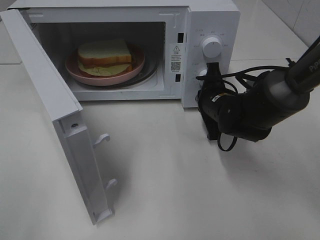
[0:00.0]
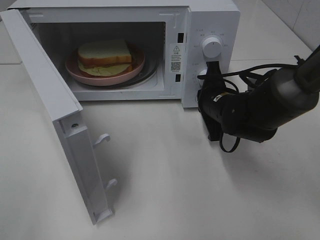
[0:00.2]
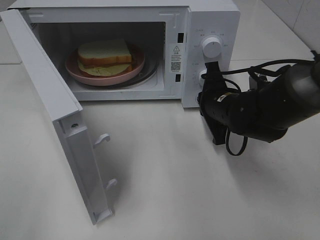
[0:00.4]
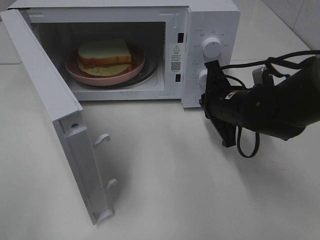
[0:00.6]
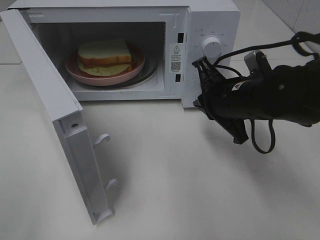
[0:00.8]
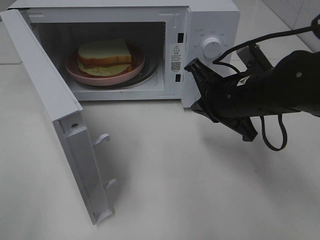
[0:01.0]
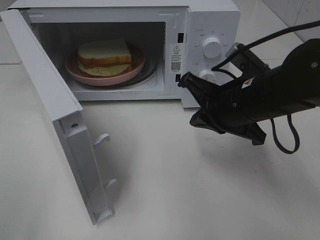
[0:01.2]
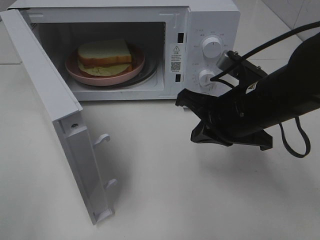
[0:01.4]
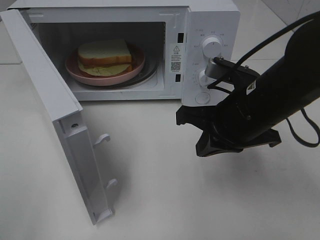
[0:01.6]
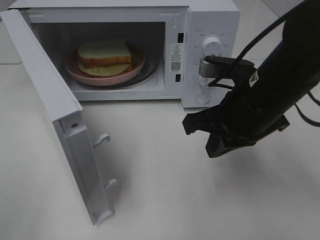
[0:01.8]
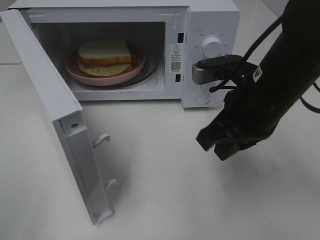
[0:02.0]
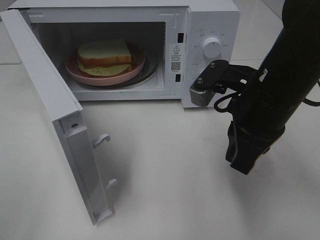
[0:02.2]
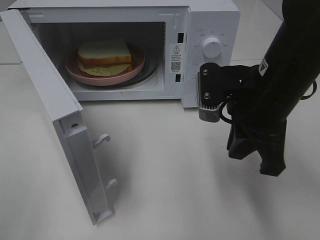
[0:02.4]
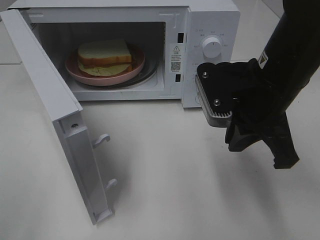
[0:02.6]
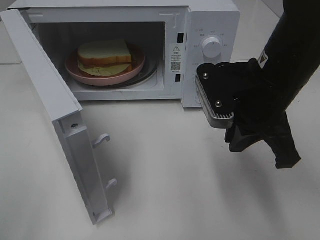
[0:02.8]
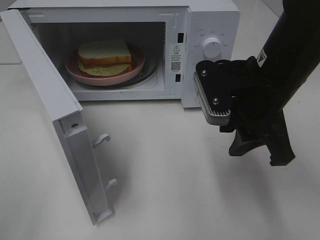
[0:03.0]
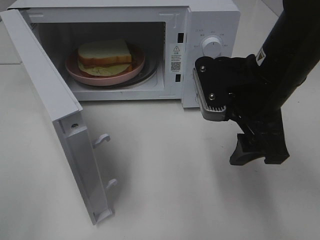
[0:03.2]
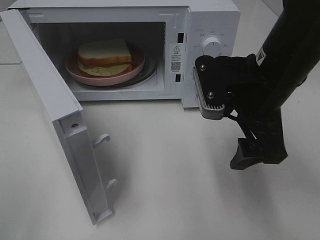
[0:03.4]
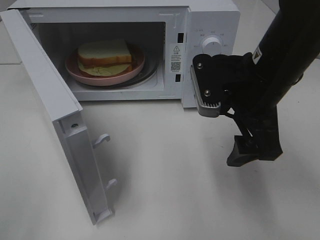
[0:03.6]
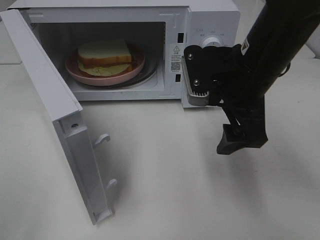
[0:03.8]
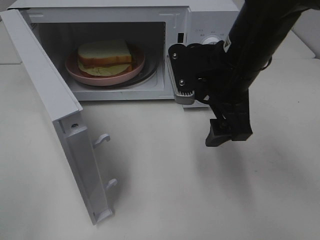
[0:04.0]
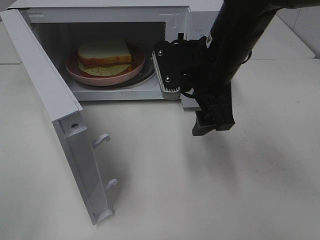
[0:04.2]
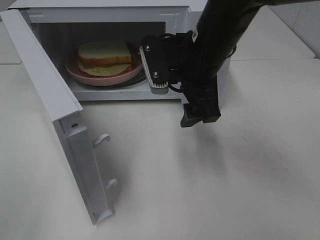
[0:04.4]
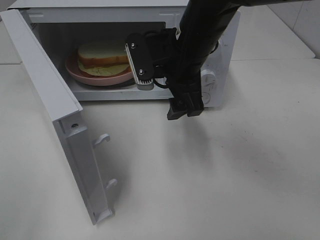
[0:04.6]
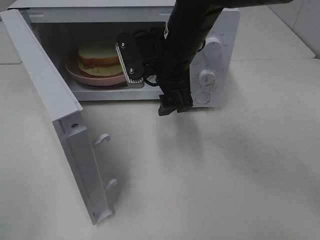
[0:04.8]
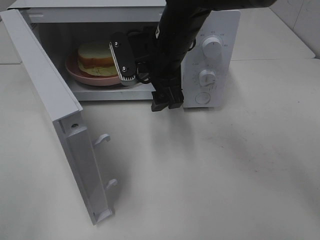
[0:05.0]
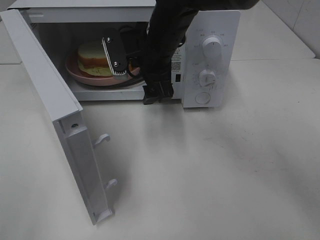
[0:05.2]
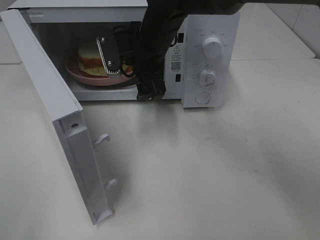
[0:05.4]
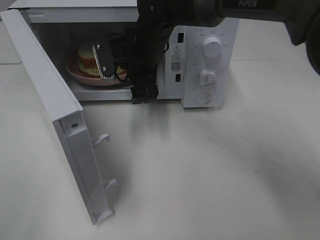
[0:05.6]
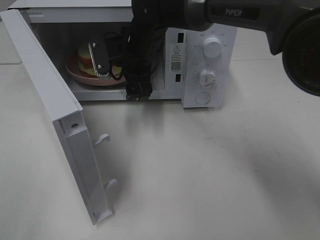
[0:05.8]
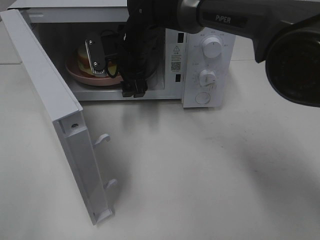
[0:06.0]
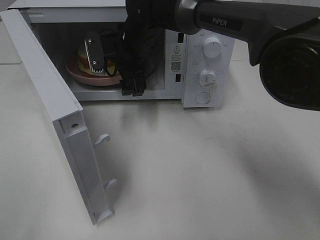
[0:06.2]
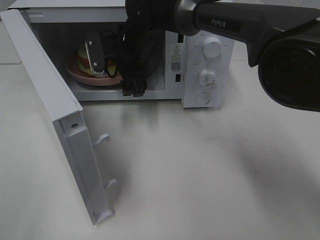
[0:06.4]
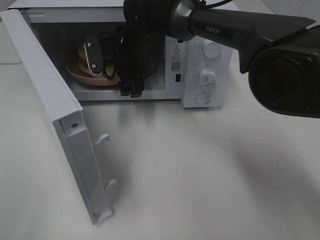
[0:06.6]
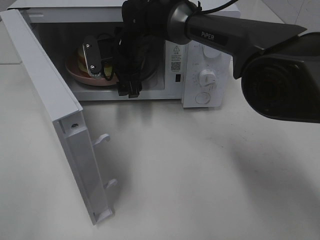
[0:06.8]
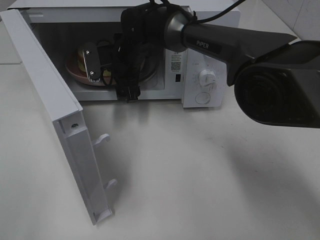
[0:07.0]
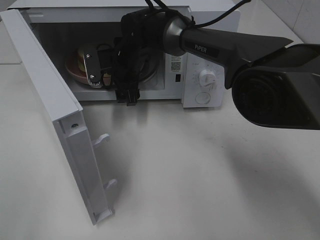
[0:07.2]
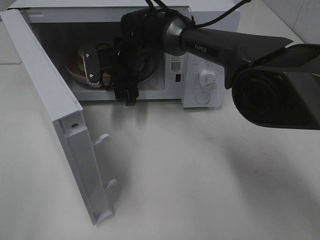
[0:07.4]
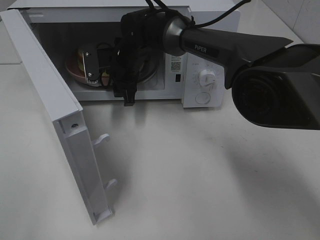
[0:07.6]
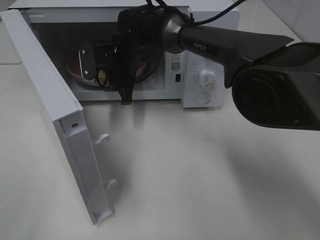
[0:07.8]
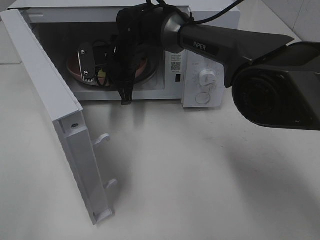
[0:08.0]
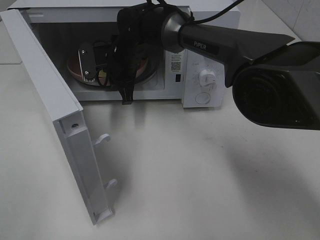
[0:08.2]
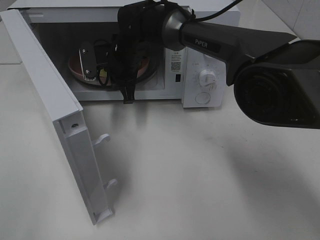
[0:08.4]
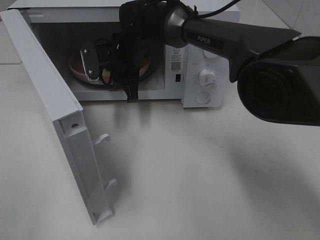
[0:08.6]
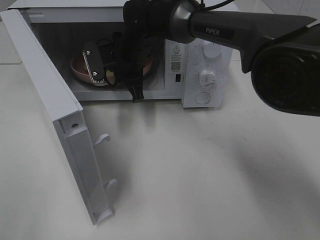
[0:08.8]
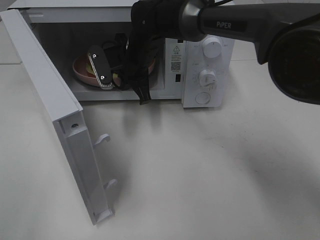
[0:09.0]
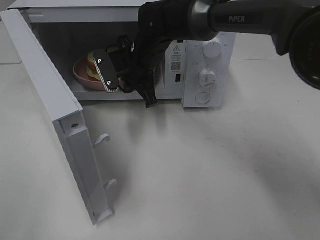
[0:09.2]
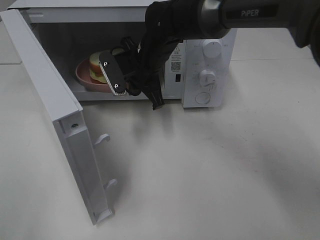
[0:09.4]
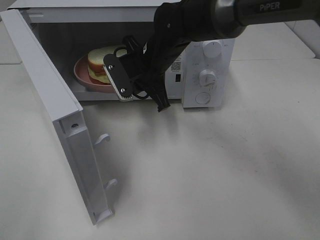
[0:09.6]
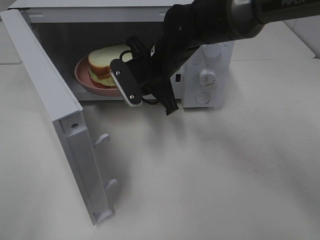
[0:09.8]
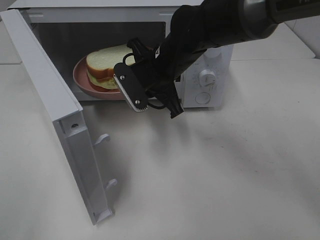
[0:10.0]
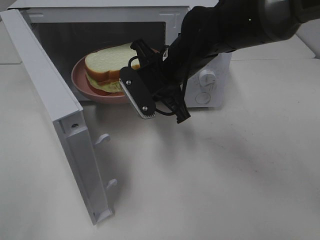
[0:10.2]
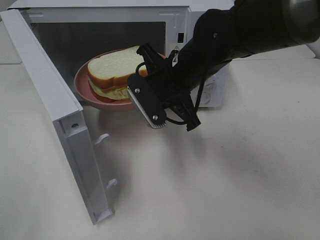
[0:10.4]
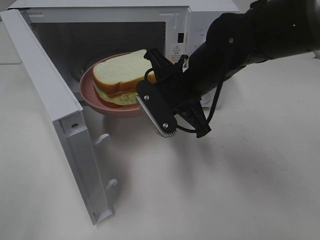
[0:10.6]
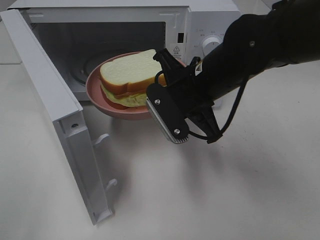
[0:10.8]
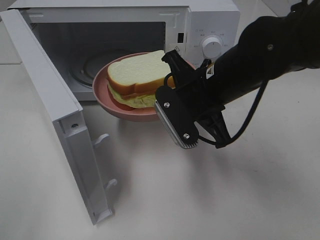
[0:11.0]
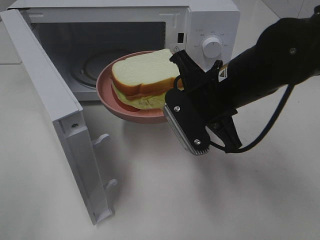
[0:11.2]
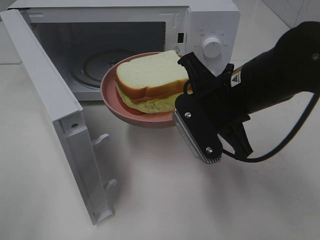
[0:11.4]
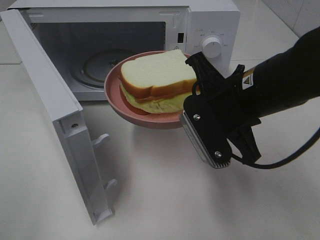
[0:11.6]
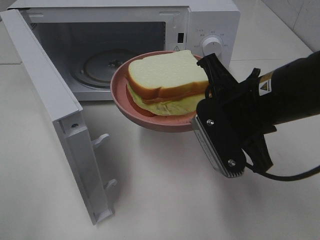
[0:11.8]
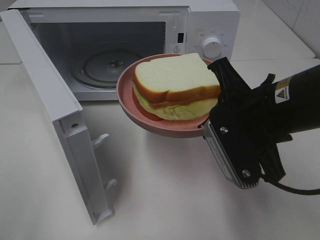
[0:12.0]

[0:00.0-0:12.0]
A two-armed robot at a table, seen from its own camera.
Task of the whole recording: Heat Sandwich.
Step, 0:00.6 to 0:08.2: Right hand: grab the plate with the sandwich.
0:00.0 to 0:01.6: The right gripper travels backward and upward by some 15 cm.
0:01.6 to 0:03.0: The right gripper opens.
0:03.0 to 0:04.4: The right gripper moves to the left and forward, about 10 cm, and opens its fingers.
0:04.4 to 0:06.0: The right gripper moves forward, to the left and downward, about 15 cm.
0:06.0 to 0:07.6: The right gripper closes up.
0:07.6 to 0:09.0: The right gripper closes.
0:09.0 to 0:10.4: The right gripper shifts some 15 cm backward and to the right.
0:10.4 to 0:12.0: The right gripper heads backward and to the right, covering roughly 15 cm.

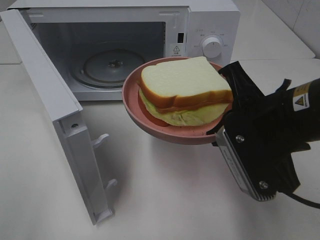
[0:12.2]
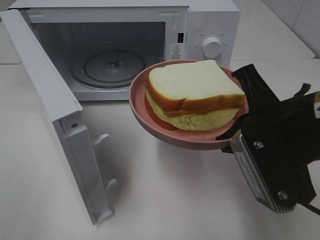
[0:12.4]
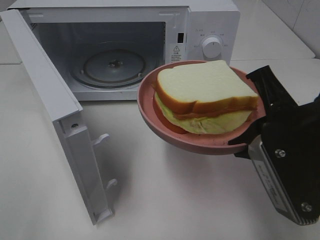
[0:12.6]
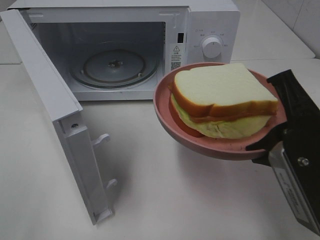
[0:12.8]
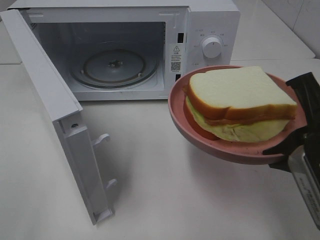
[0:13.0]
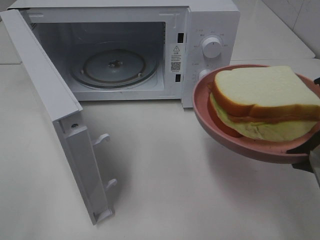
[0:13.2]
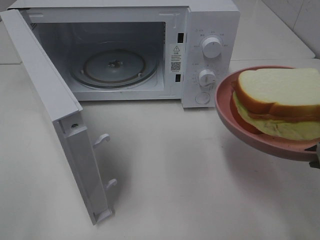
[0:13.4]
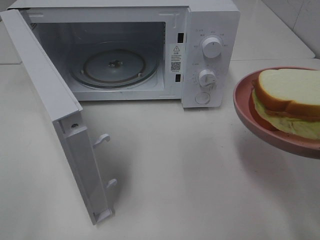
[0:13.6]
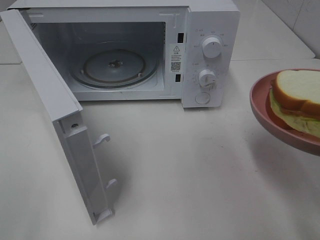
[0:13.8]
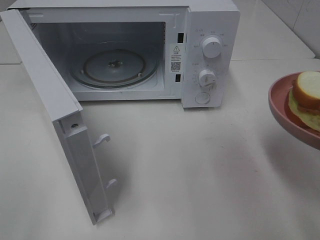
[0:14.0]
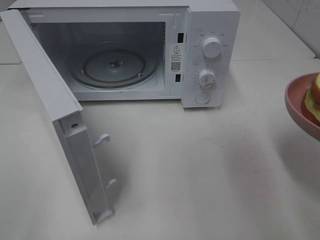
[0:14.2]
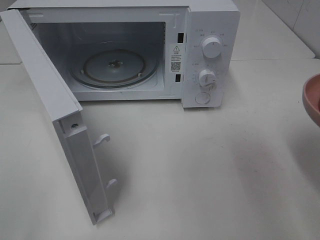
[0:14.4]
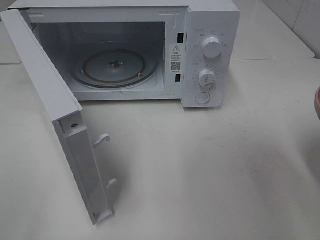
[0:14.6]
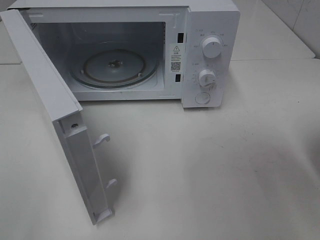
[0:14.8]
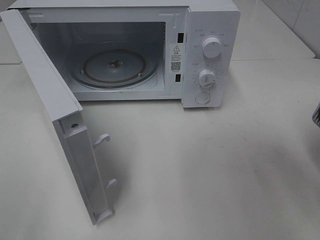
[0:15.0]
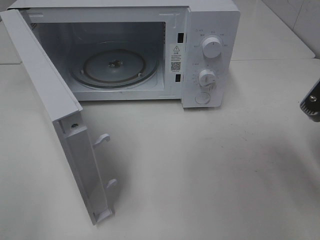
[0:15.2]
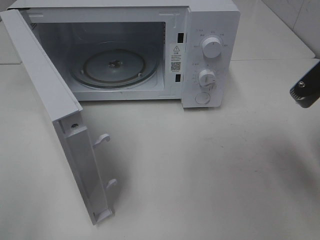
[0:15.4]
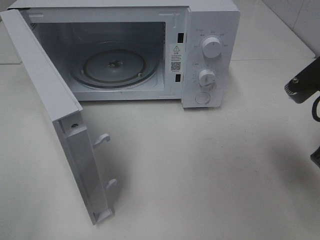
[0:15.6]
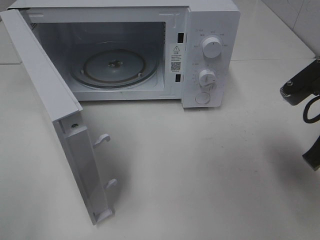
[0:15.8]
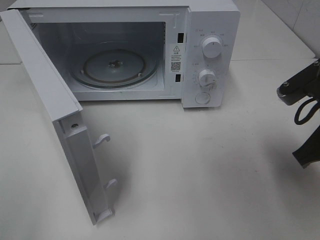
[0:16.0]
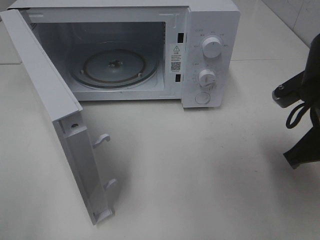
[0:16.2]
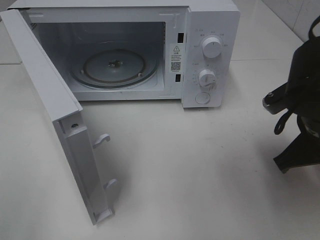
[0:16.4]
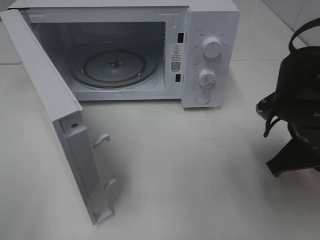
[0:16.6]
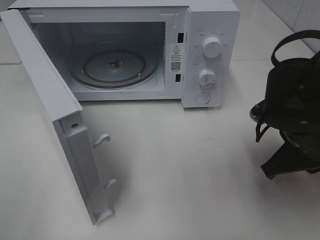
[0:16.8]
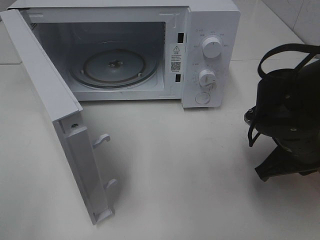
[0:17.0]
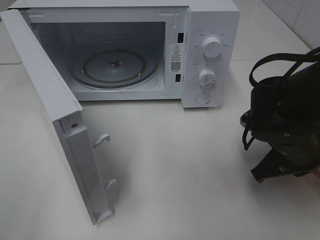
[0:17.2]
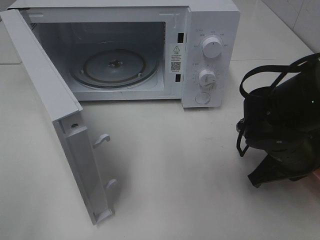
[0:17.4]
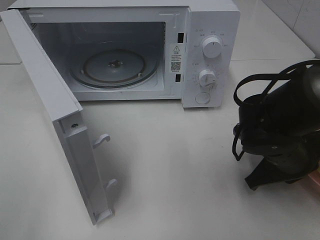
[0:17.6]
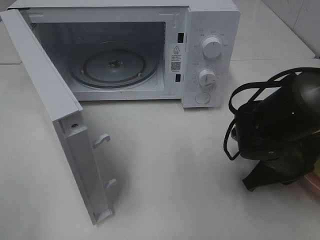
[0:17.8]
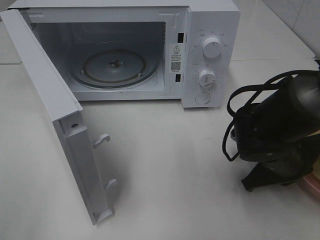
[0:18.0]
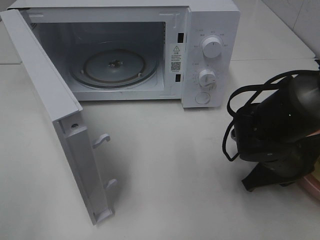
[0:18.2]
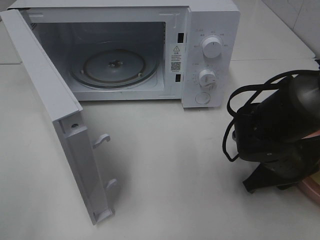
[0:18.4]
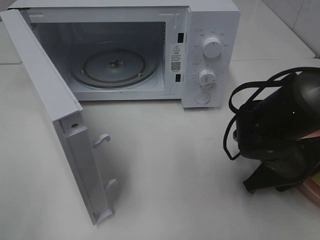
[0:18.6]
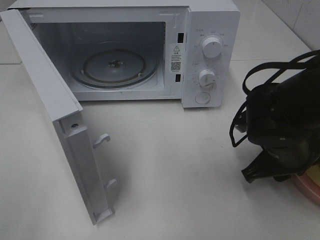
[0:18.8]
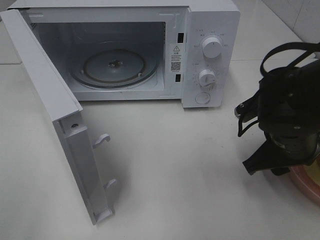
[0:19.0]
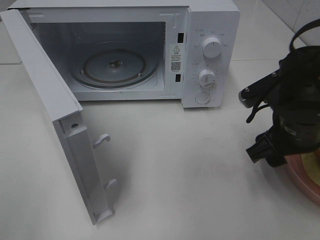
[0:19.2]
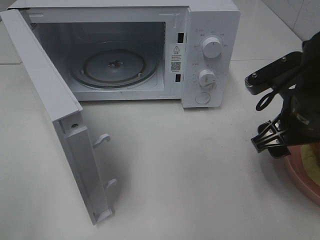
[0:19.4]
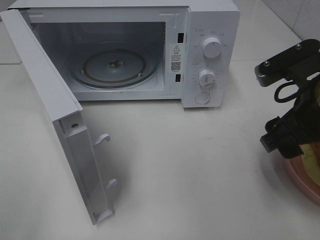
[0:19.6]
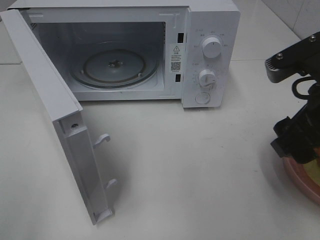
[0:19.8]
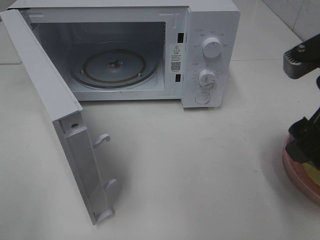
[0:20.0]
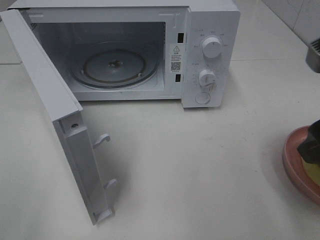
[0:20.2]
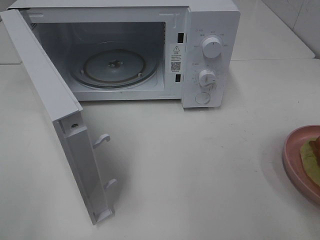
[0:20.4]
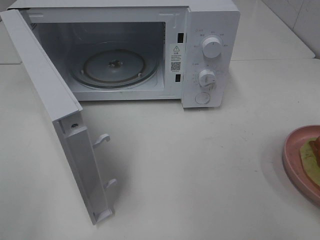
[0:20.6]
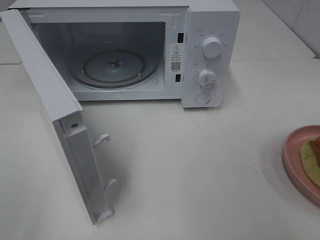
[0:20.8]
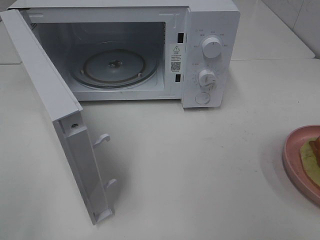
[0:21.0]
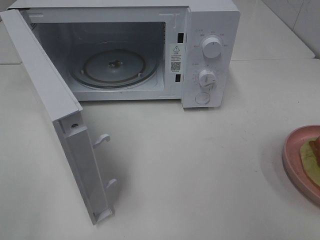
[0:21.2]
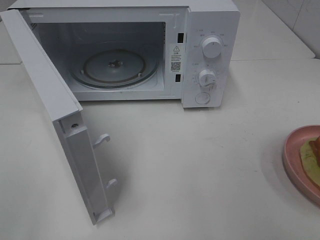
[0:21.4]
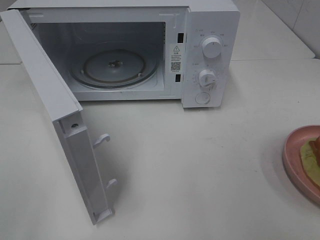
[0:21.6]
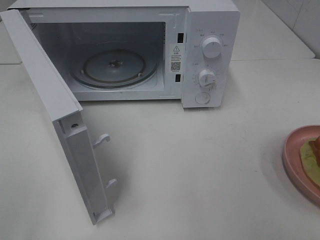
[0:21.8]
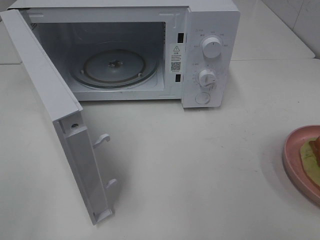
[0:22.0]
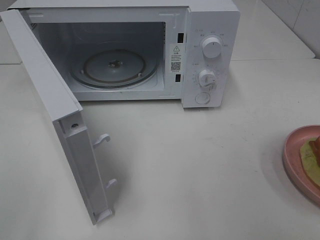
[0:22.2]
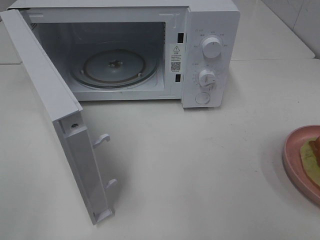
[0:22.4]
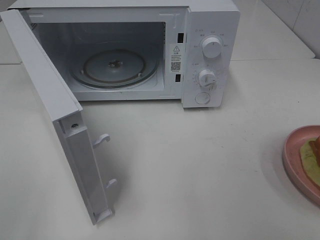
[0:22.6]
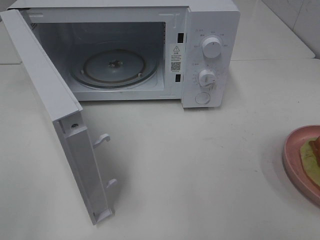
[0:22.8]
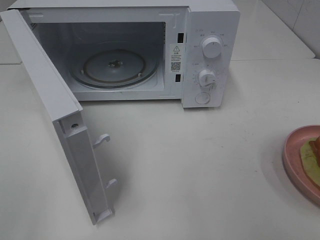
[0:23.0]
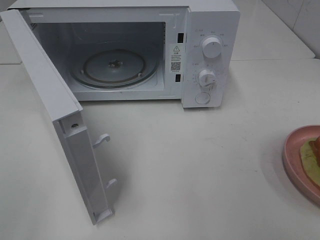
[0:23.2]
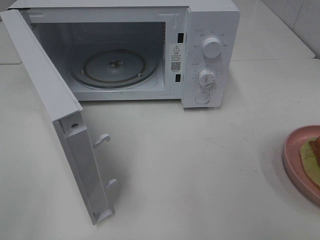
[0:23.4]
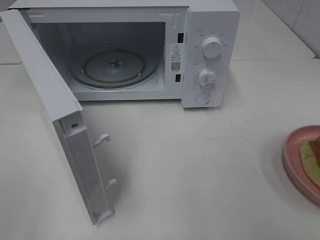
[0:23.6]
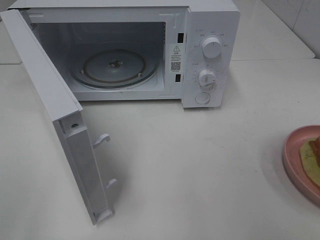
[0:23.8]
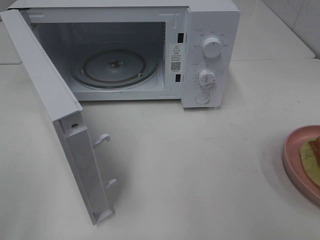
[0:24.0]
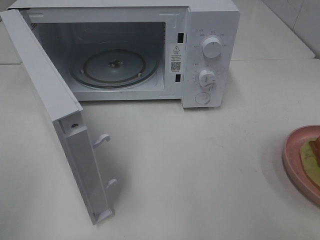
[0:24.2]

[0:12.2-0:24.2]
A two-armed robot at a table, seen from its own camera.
Task of the whole recording: Heat Sandwich.
Step, 0:12.2 to 0:19.8: Right hand: place the plate on the table.
0:12.2 to 0:13.8: The right gripper shifts approximately 10 cm to the right and backward.
0:15.2 to 0:16.6: The right gripper travels downward and forward by some 10 cm.
0:16.6 to 0:18.2: The right gripper goes some 10 cm downward.
0:18.2 to 0:19.8: The right gripper is displaced upward by some 15 cm, and opens up.
0:19.8 to 0:21.2: The right gripper moves backward and to the right, roughly 20 cm.
